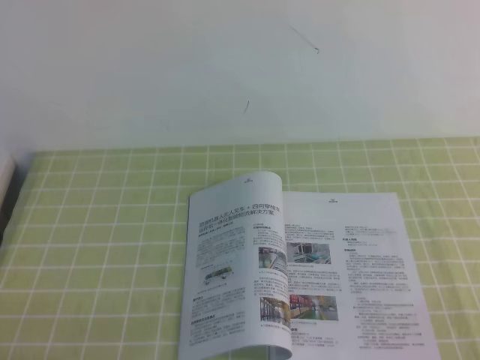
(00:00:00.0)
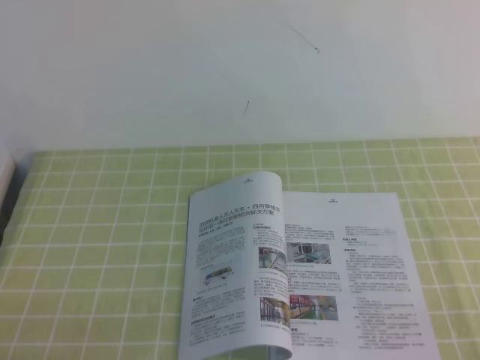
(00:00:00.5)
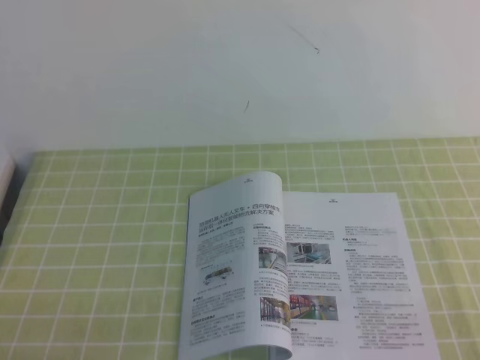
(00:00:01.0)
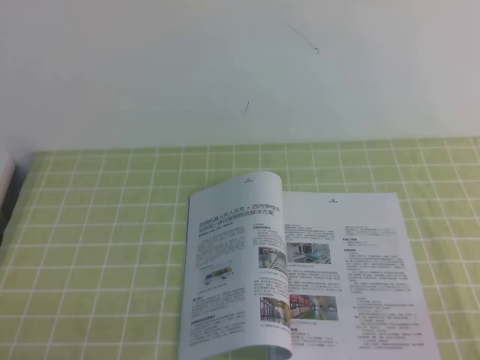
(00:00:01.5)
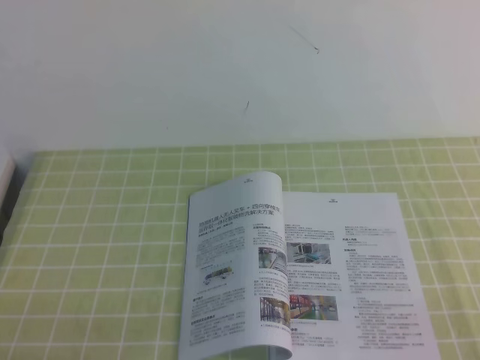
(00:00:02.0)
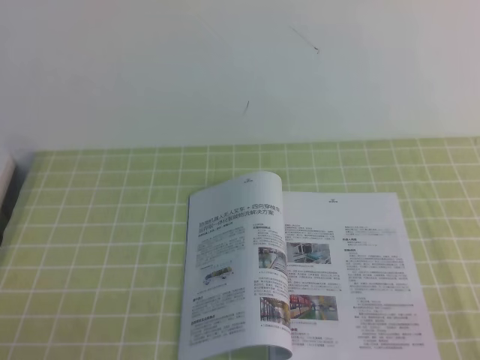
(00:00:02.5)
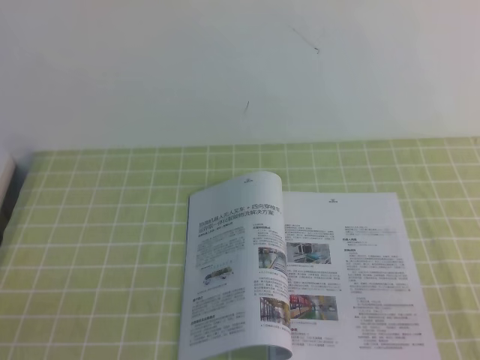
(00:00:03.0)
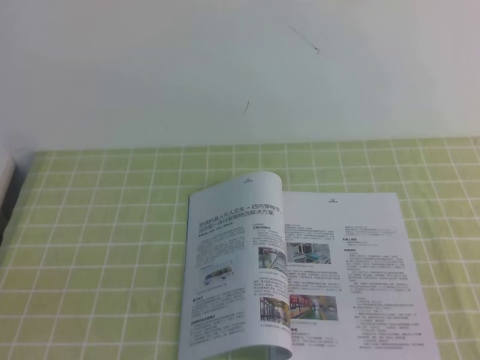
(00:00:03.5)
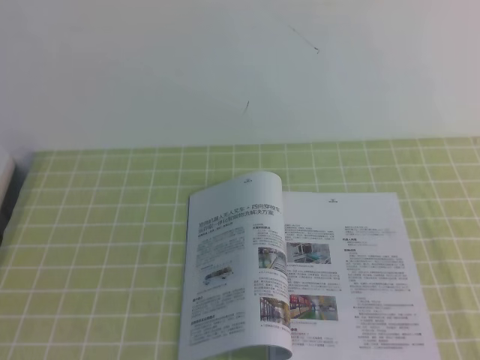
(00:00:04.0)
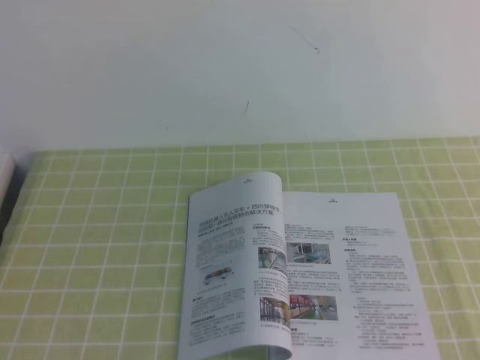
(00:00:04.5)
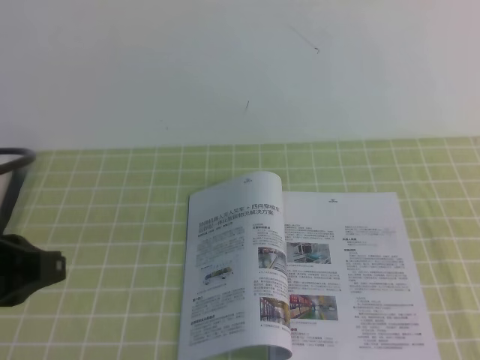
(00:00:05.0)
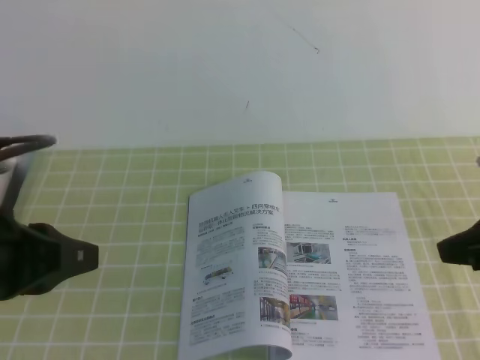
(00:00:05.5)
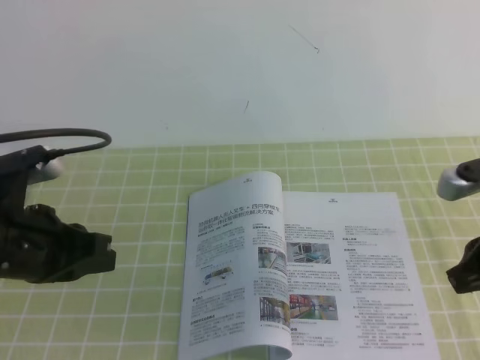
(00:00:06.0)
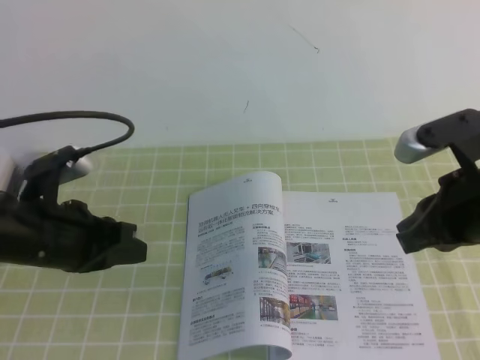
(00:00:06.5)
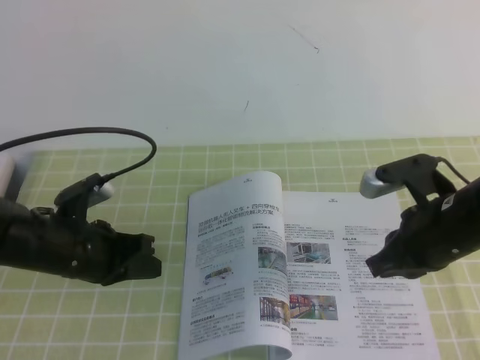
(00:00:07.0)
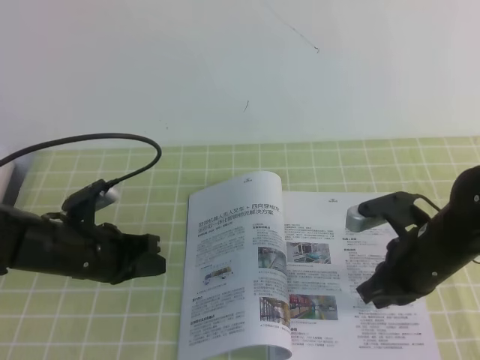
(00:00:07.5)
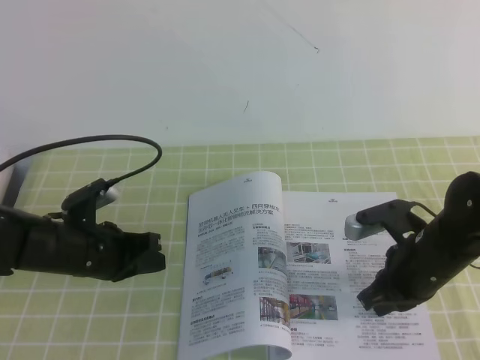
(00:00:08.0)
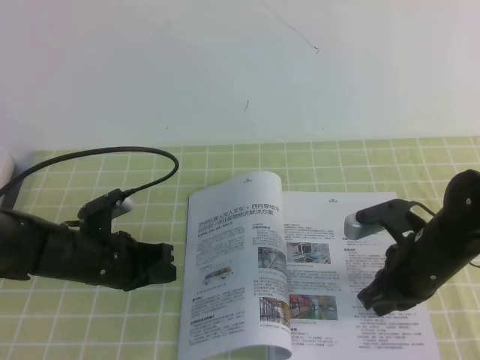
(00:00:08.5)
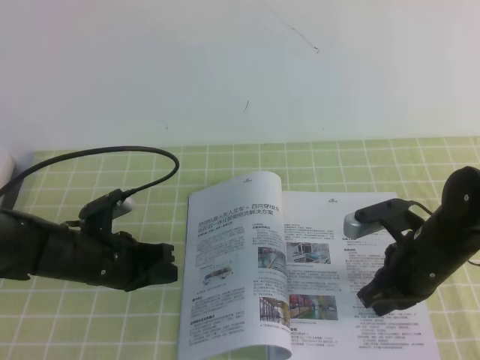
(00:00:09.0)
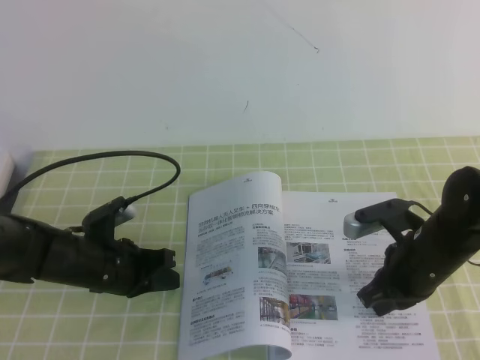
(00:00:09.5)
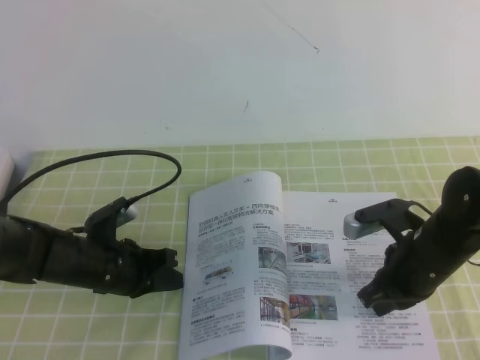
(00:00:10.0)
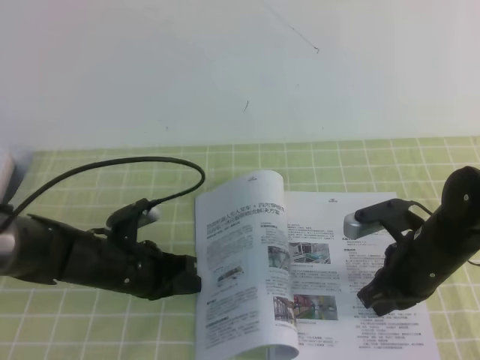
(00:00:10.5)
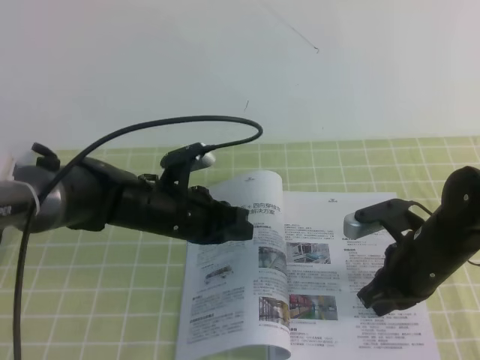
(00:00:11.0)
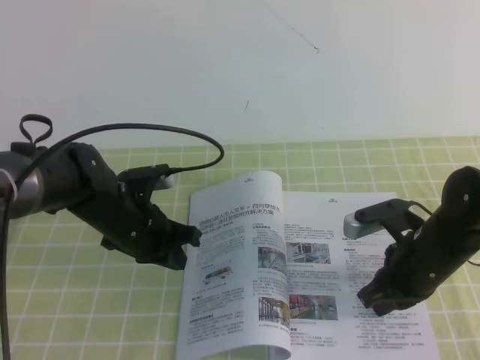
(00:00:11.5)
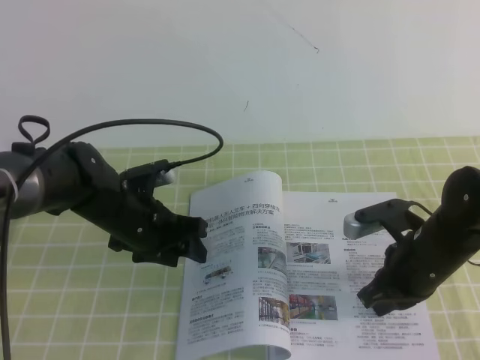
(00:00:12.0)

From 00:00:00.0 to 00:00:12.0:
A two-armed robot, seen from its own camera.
Task of the whole recording: on the green tablecloth, hold the book with one hand and close it with the other.
From 00:00:00.0 to 00:00:02.0: The two grippers keep their place.
From 00:00:04.0 to 00:00:06.0: Both grippers travel together forward and downward, about 25 cm.
From 00:00:06.0 to 00:00:08.0: The right gripper is displaced downward, to the left and forward by approximately 15 cm. Meanwhile the left gripper travels downward and forward by some 15 cm.
From 00:00:08.0 to 00:00:10.0: The grippers move only a little.
From 00:00:10.0 to 00:00:12.0: The left gripper shifts by roughly 5 cm, and opens.

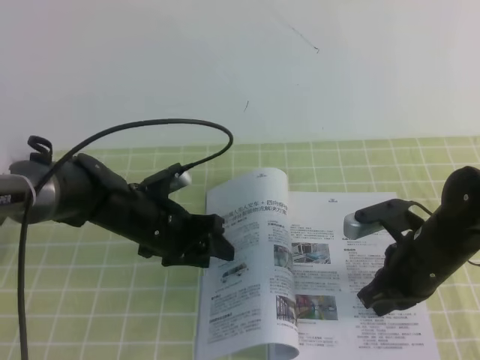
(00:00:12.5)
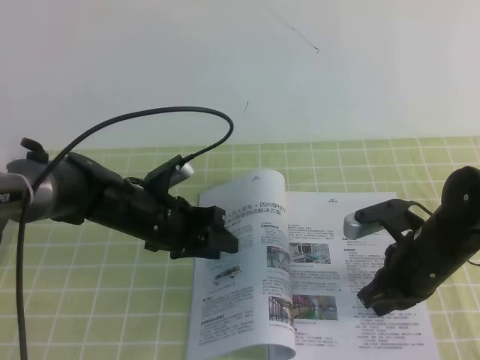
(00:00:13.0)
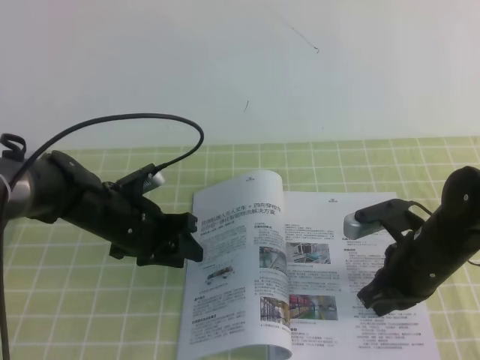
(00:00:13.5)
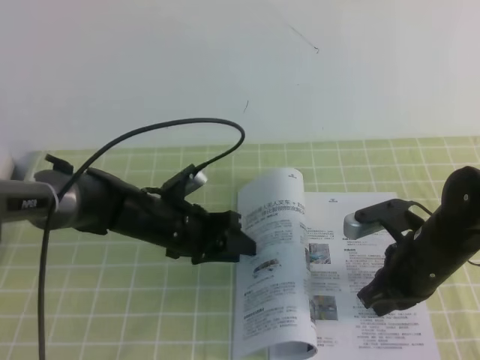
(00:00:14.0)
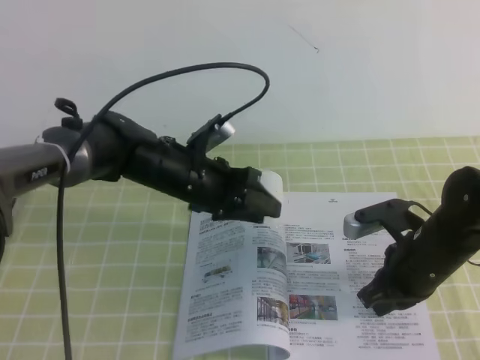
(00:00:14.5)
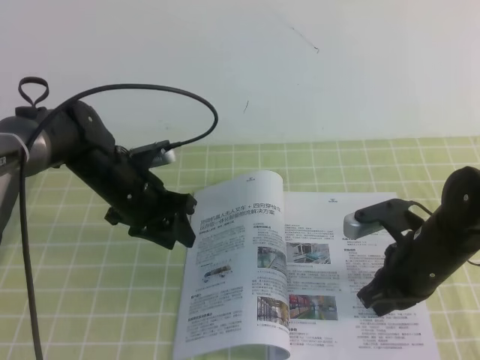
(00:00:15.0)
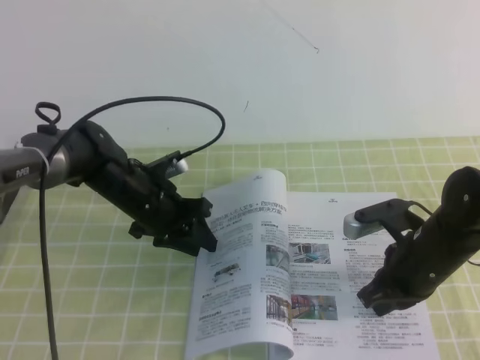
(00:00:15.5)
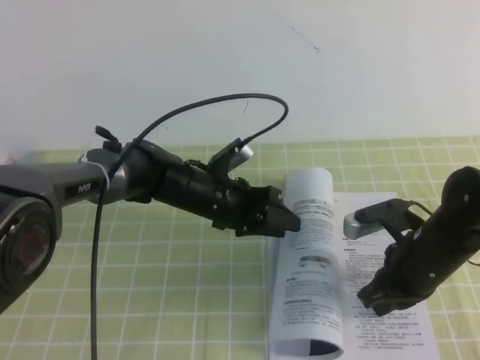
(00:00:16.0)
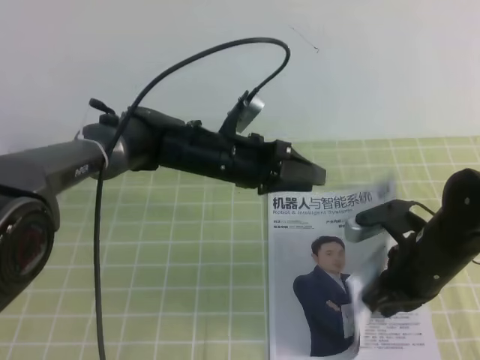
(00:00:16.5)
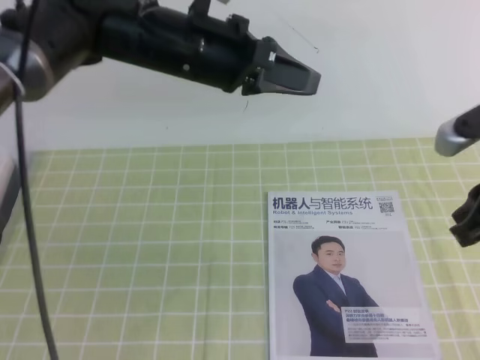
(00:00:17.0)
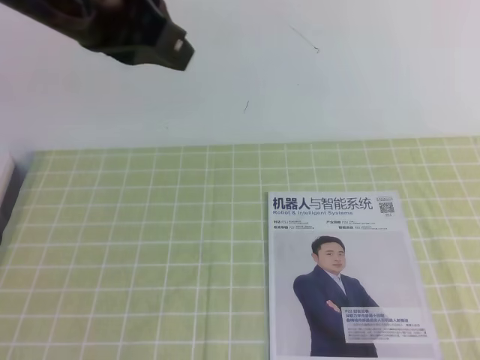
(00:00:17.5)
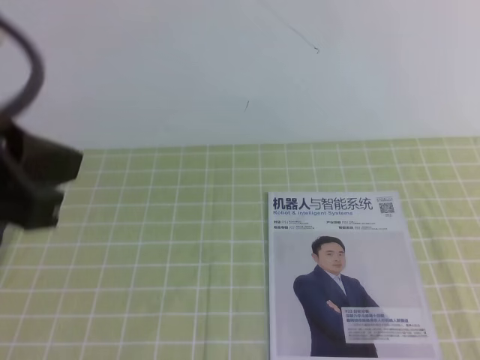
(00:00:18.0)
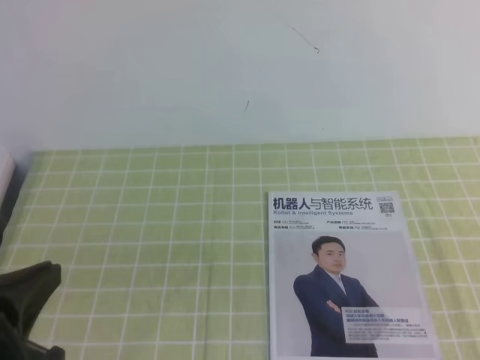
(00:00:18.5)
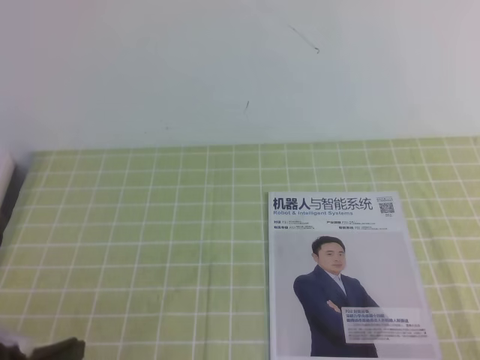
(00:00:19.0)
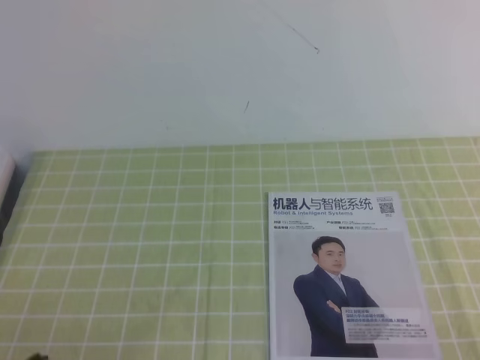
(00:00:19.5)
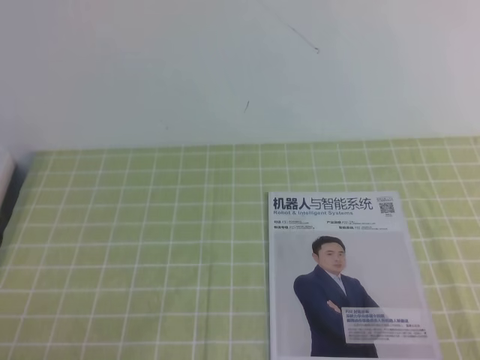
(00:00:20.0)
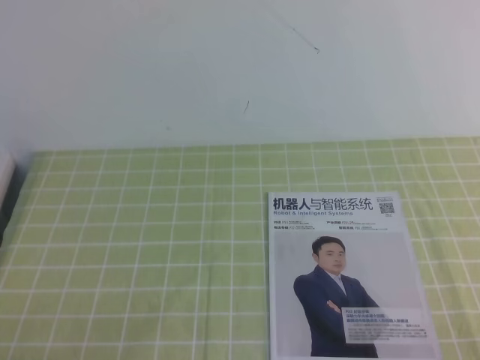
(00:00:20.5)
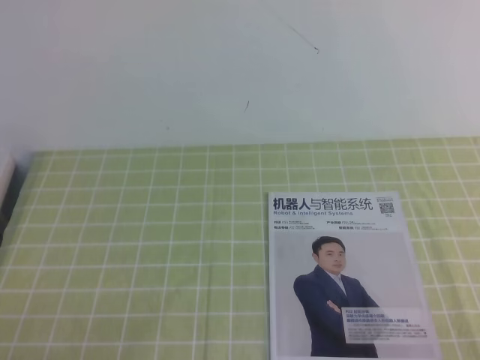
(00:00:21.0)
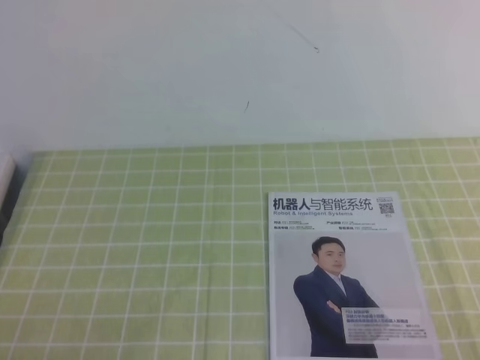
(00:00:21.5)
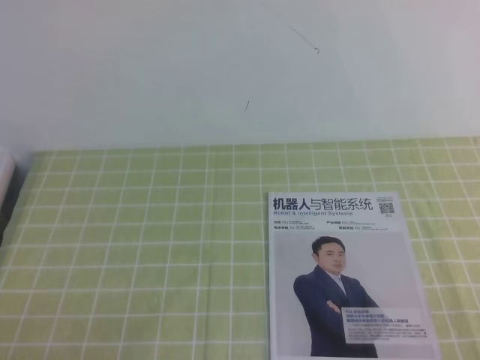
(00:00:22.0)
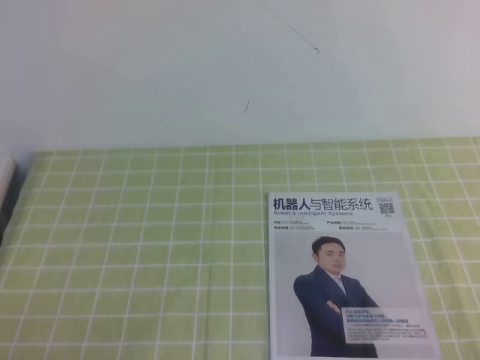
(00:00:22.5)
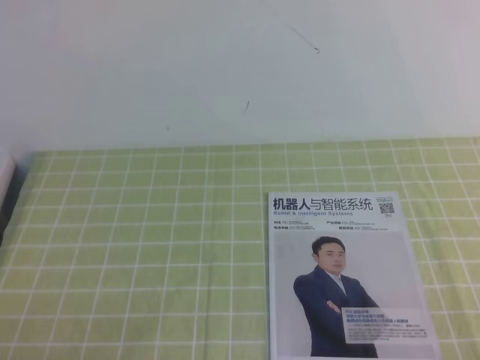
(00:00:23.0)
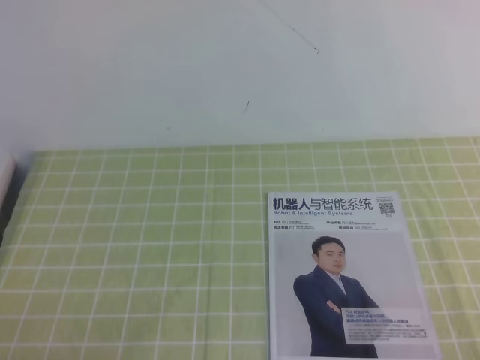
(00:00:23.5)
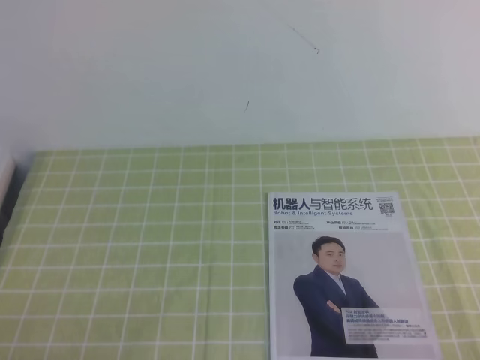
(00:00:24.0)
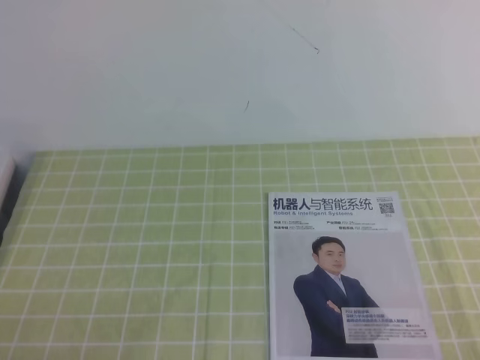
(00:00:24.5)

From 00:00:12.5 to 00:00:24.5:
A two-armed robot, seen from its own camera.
Task of the whole recording: on the green tablecloth, hold the book with one hand and close it with the other.
Step, from 00:00:12.5 to 00:00:24.5: Close the open book.
From 00:00:12.5 to 00:00:14.5: The left gripper moves some 5 cm.
From 00:00:14.5 to 00:00:16.5: The left gripper changes place by approximately 5 cm.
From 00:00:16.5 to 00:00:18.5: The left gripper shifts some 35 cm backward and to the left, and closes its fingers, while the right gripper travels backward and upward by approximately 30 cm.
From 00:00:18.5 to 00:00:20.5: The left gripper heads downward and backward, covering approximately 15 cm.
From 00:00:22.5 to 00:00:24.5: The two grippers keep their place.
